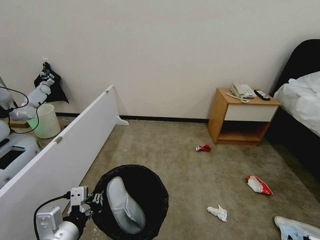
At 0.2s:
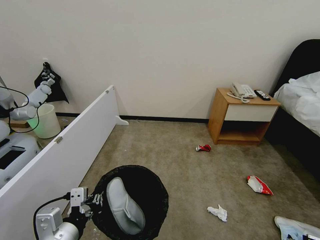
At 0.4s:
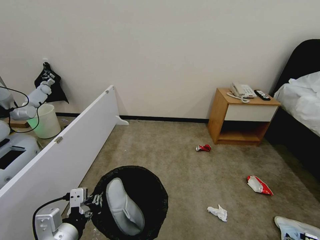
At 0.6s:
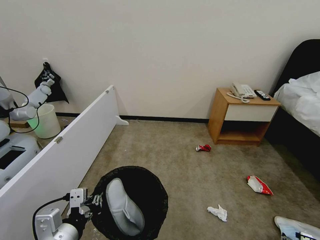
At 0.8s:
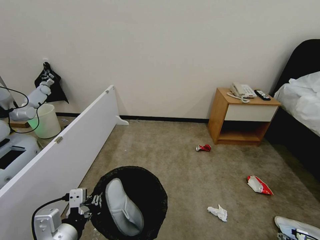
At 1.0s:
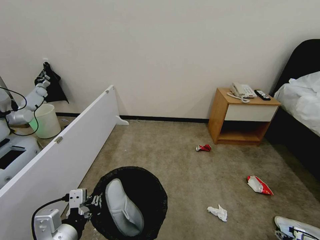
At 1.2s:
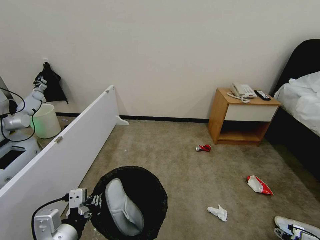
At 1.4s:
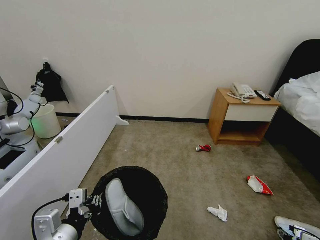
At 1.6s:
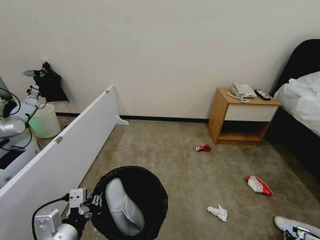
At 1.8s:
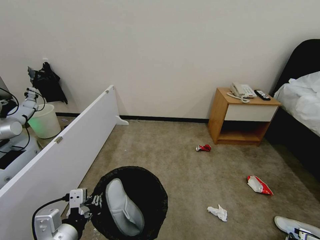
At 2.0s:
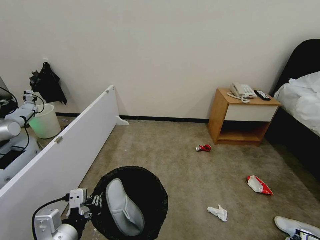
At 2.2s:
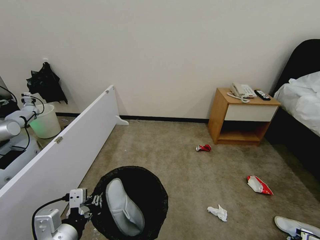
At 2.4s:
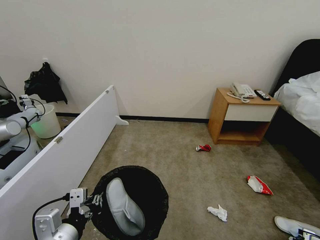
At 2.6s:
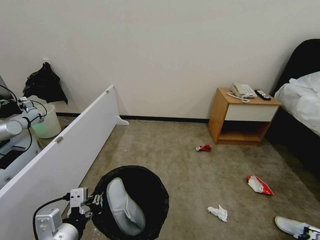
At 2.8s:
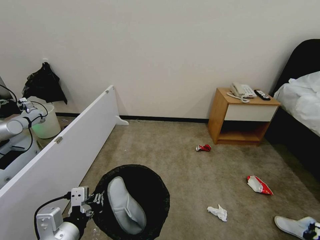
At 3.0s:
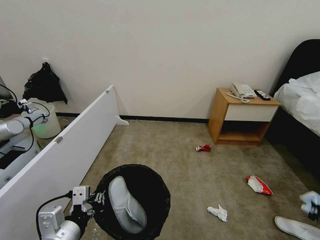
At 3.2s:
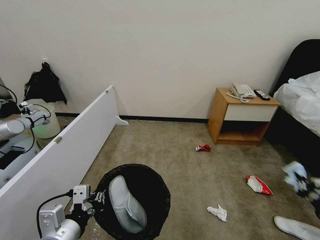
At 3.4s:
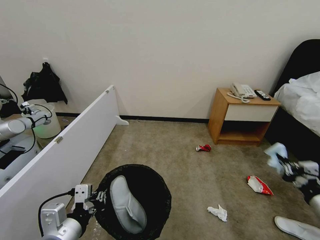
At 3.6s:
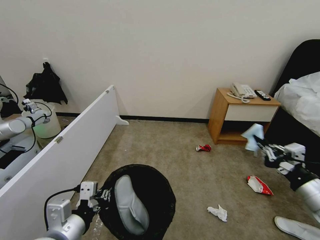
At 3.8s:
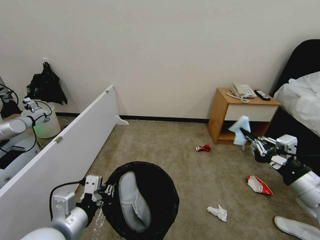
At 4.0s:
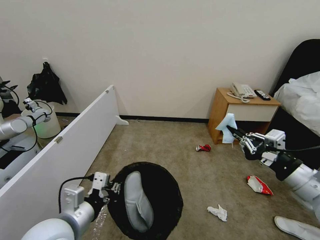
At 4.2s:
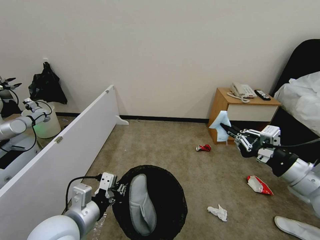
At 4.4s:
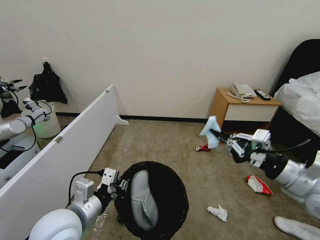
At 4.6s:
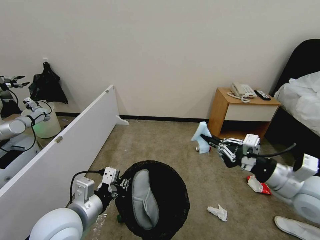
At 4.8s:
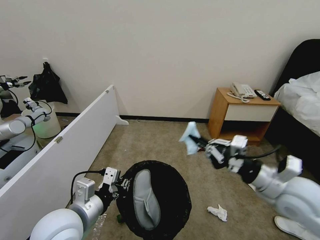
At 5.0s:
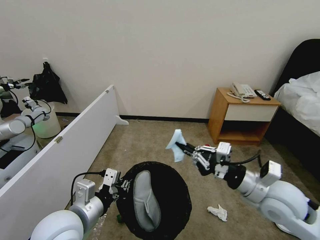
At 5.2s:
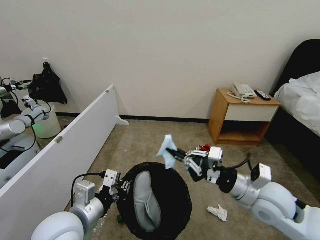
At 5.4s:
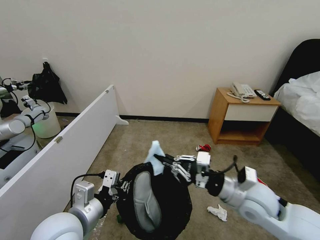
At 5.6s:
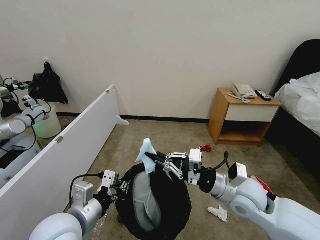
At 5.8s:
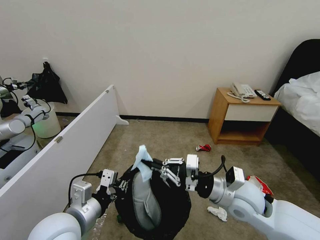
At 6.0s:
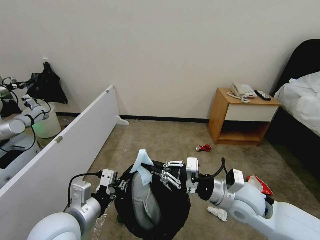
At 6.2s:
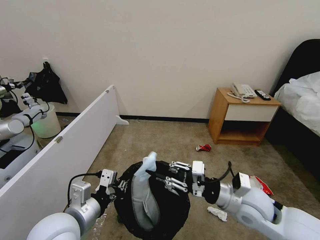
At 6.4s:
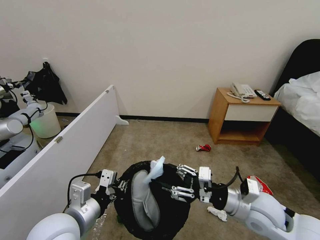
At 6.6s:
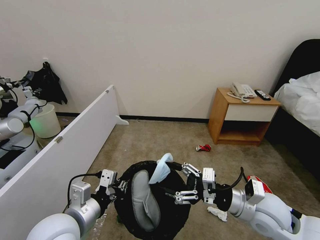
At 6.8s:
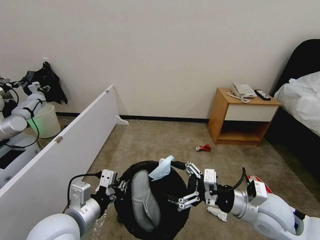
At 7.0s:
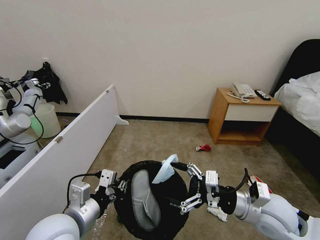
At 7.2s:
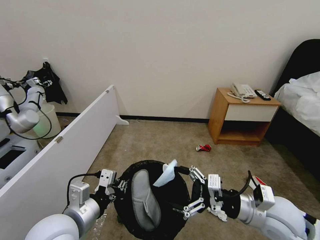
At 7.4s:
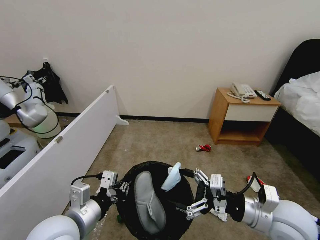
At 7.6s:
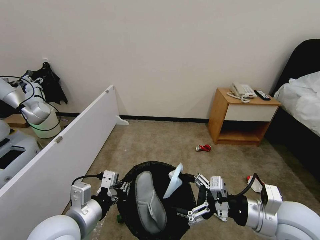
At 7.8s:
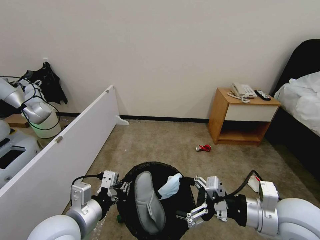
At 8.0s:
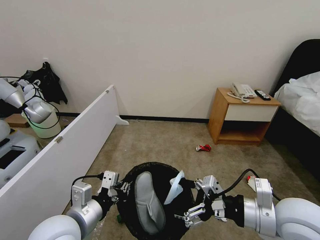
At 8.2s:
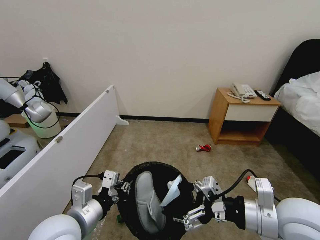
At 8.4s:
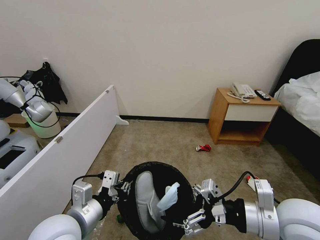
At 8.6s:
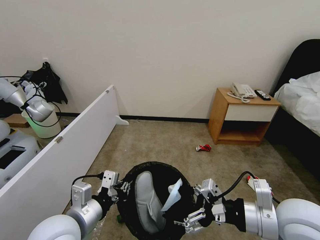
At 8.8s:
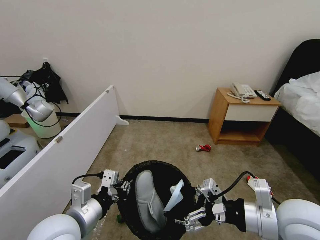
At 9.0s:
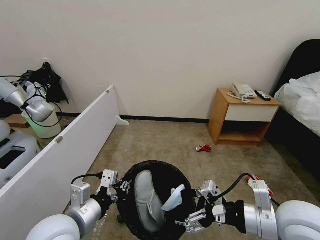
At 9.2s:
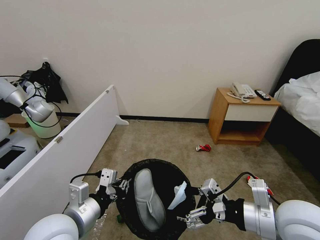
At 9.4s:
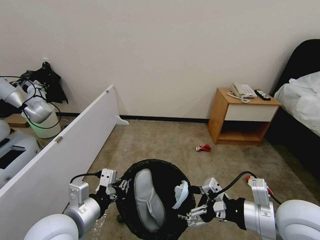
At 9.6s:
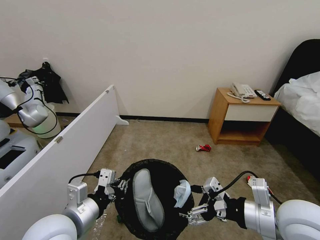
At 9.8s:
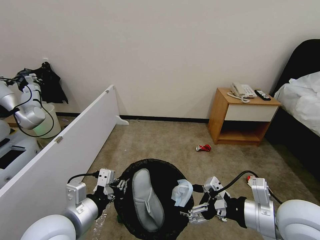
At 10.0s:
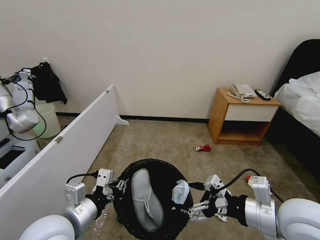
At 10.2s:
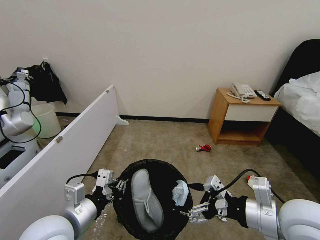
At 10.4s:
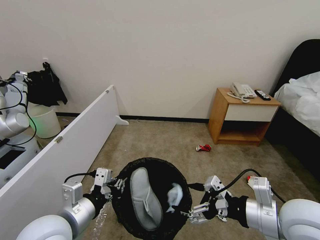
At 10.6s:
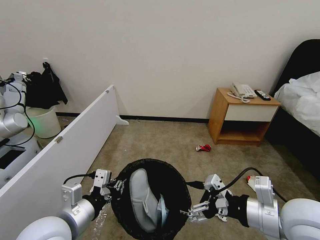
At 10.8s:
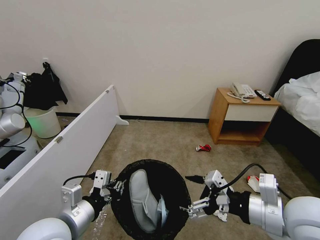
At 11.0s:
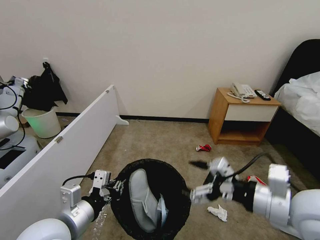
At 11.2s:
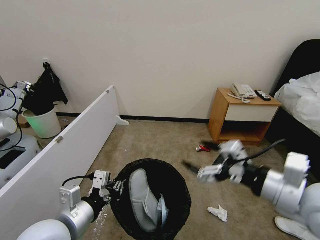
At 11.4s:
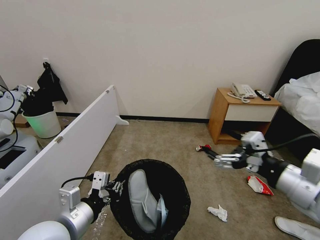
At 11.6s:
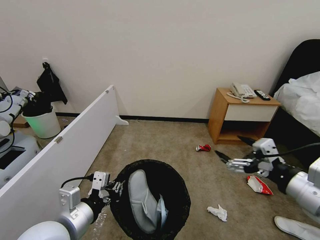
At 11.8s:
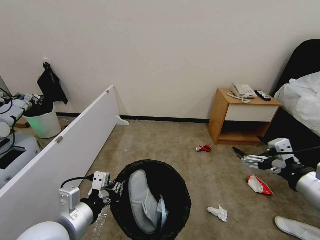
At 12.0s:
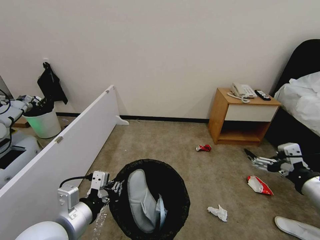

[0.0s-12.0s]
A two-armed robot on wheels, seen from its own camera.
Task of the whole recording: Pick up the trash bin, then pick up the garbage from the floor and place it into the trash bin.
0.0s to 1.6s: The right gripper travels forward by some 5 cm, and closes its fingers.
1.6s to 3.0s: The right gripper is displaced upward by approximately 15 cm, and closes up.
3.0s to 4.4s: The left gripper shifts roughly 5 cm forward; the right gripper is displaced upward and to the left by approximately 35 cm.
4.4s to 6.0s: The right gripper moves to the left and downward, roughly 15 cm.
6.0s to 7.6s: The right gripper moves to the right and backward, some 10 cm, and opens.
9.0s to 10.4s: There are only small adjustments of the grippers.
10.4s to 12.0s: The right gripper is displaced to the right by about 10 cm.

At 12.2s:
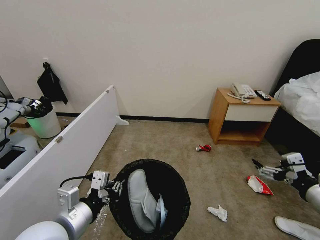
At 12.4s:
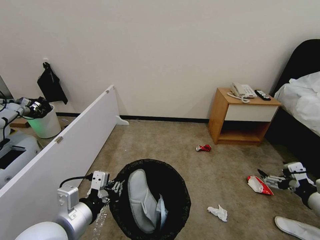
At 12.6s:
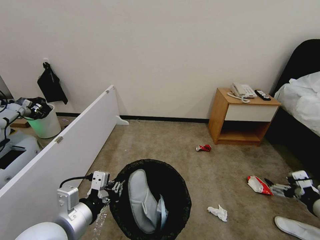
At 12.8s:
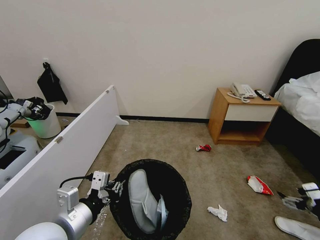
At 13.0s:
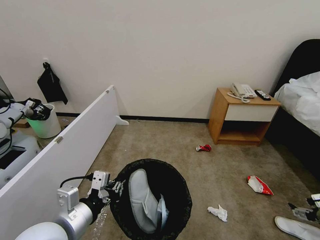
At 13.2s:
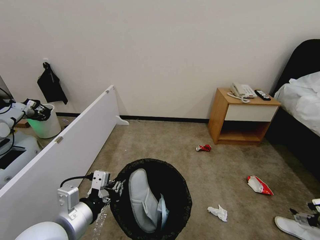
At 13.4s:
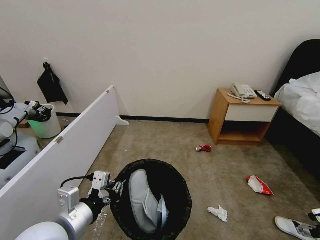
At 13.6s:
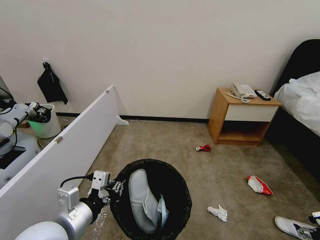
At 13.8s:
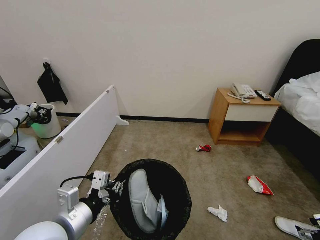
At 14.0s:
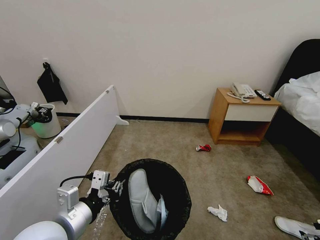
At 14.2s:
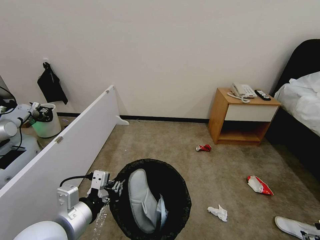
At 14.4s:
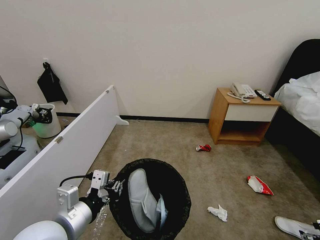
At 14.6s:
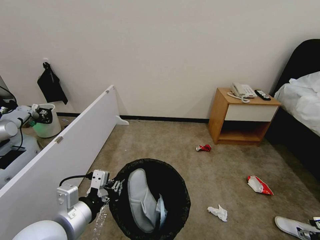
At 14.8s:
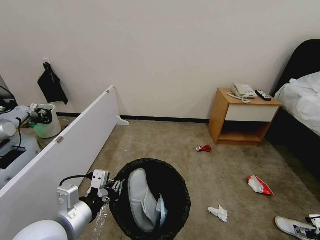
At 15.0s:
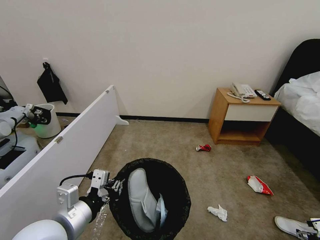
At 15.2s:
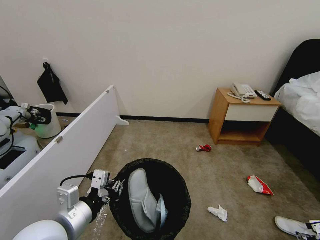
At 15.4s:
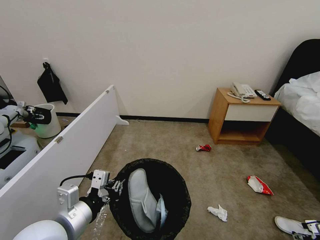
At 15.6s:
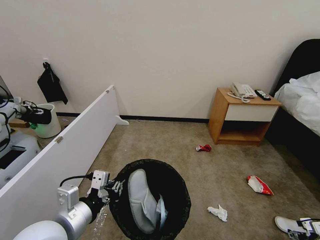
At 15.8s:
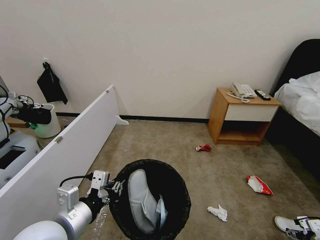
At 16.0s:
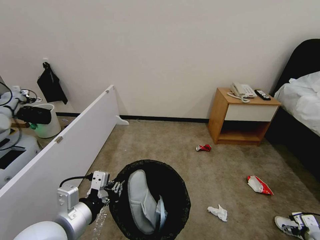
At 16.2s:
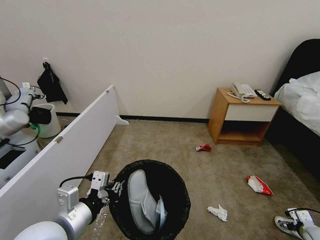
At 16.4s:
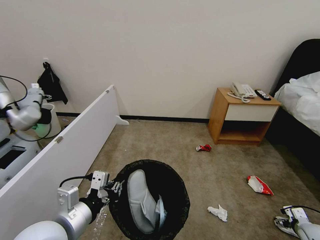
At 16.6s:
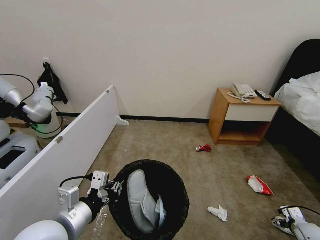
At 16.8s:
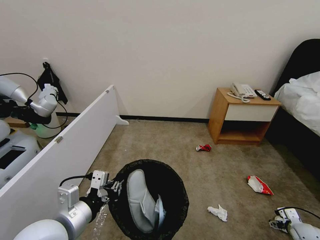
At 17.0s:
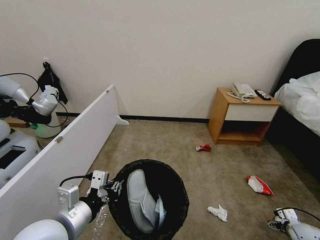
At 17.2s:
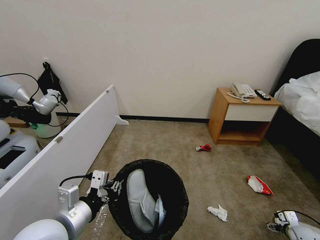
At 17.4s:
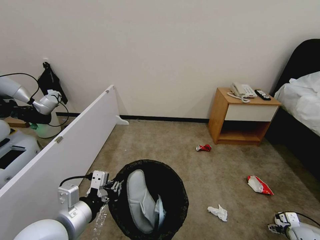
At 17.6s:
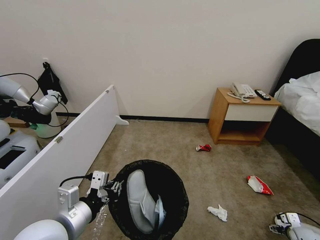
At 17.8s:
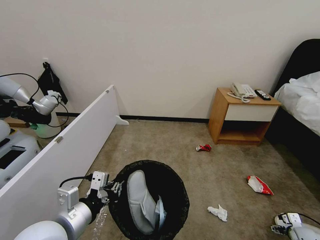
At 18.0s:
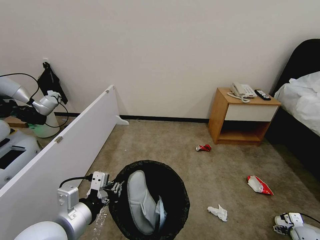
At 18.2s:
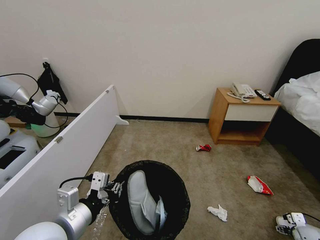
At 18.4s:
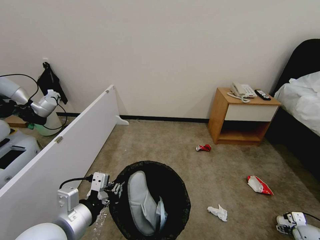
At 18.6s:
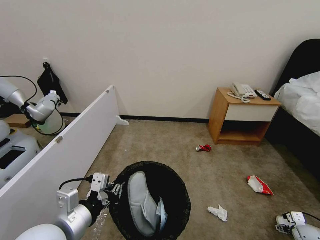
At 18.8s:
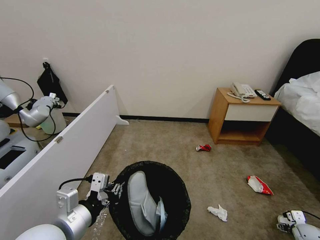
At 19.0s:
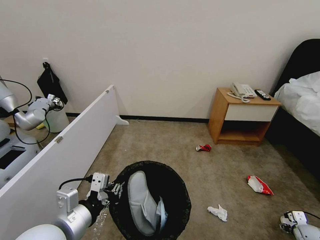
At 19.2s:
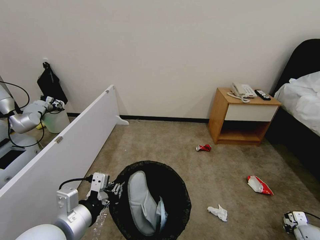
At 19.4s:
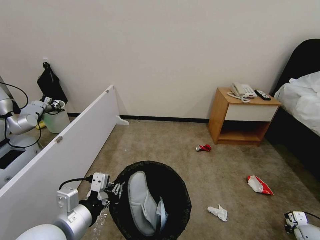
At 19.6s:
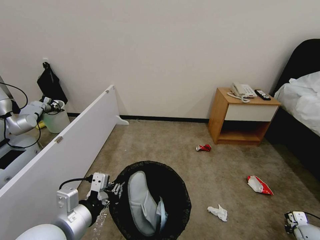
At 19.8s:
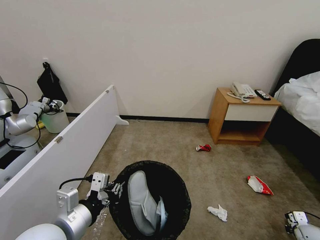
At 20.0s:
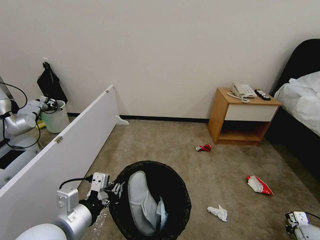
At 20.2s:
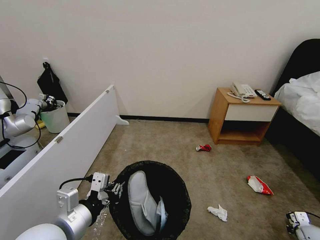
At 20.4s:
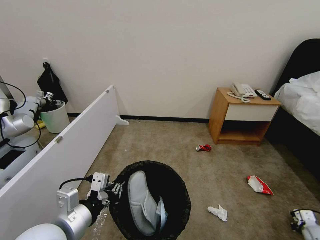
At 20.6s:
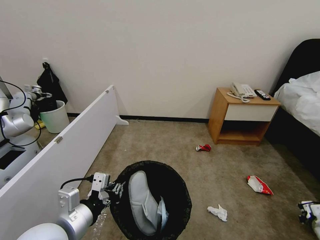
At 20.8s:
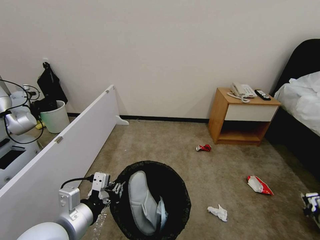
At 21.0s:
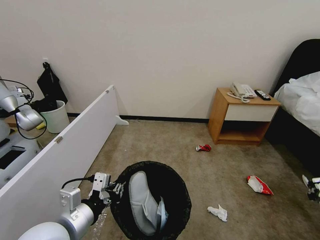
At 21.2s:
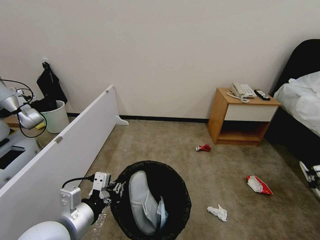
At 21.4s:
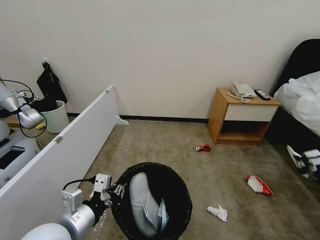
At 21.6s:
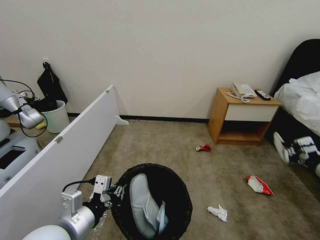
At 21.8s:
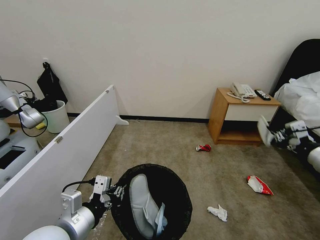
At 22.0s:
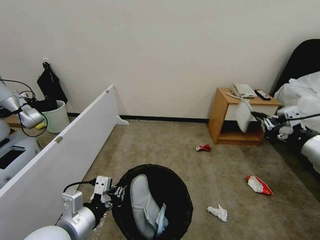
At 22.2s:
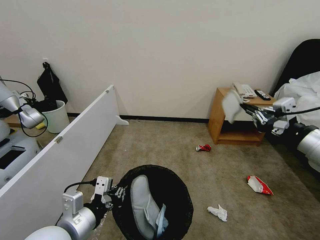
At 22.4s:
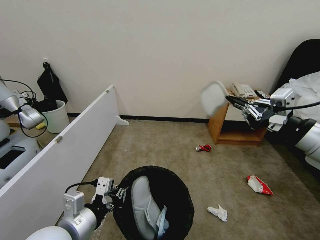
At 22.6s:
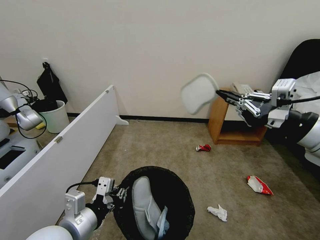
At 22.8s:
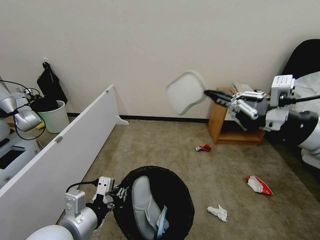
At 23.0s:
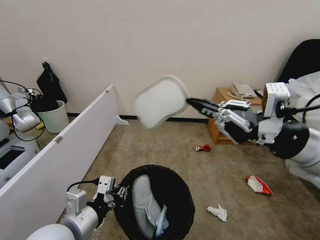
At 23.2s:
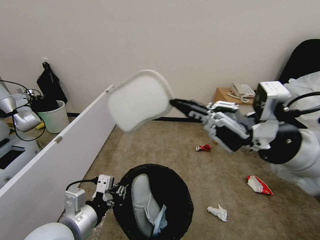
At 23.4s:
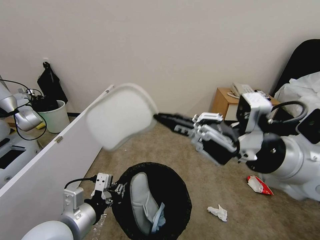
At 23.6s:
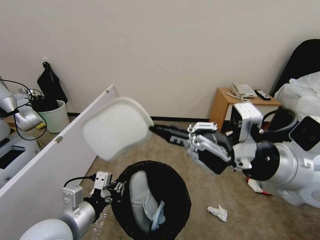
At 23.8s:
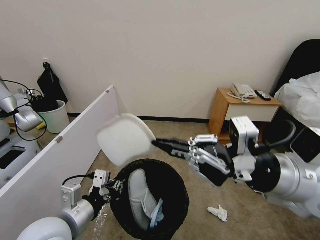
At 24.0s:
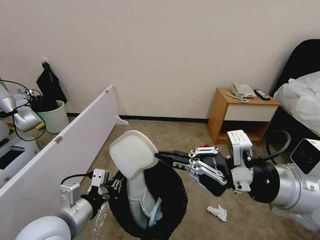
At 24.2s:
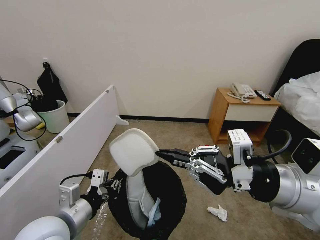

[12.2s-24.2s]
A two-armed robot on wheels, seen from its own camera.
Task of the whole recording: Pick up the trash bin, then pick up the garbage from the floor and place it into the trash bin.
12.2s to 13.8s: The right gripper moves downward and to the right, about 20 cm.
13.8s to 15.2s: The right gripper shifts approximately 10 cm downward and to the right.
15.2s to 16.6s: The right gripper travels forward and downward by roughly 10 cm.
16.6s to 18.2s: The grippers make only small movements.
18.2s to 19.8s: The right gripper closes its fingers.
19.8s to 21.2s: The right gripper heads upward, covering approximately 25 cm.
21.2s to 22.6s: The right gripper moves upward and to the left, approximately 35 cm.
22.6s to 24.2s: The right gripper shifts approximately 10 cm to the left and downward.
